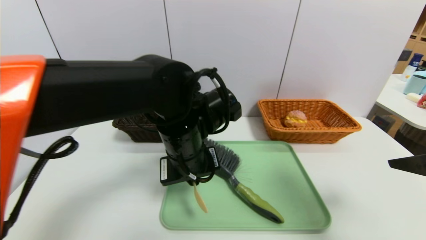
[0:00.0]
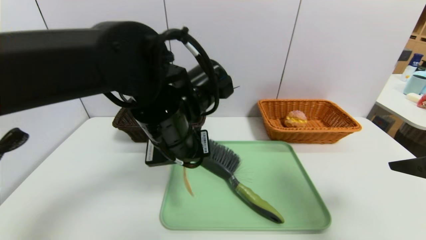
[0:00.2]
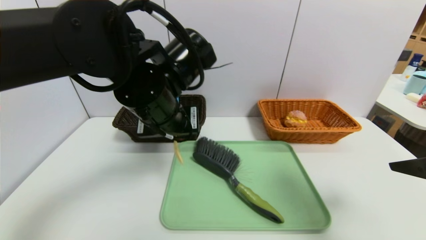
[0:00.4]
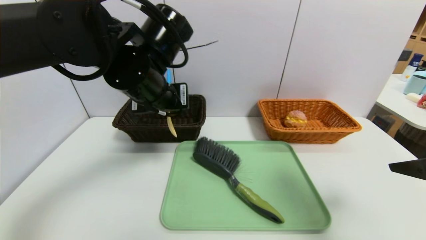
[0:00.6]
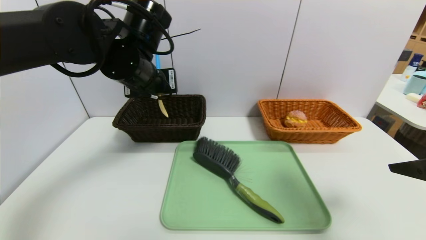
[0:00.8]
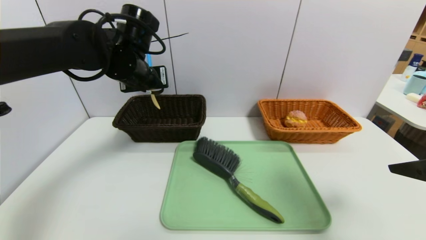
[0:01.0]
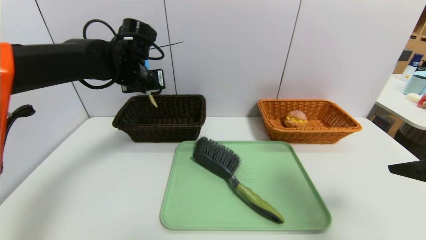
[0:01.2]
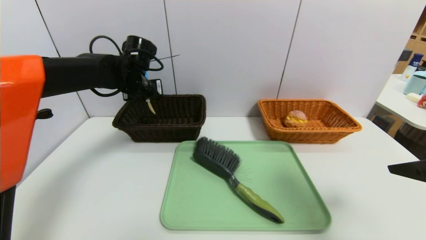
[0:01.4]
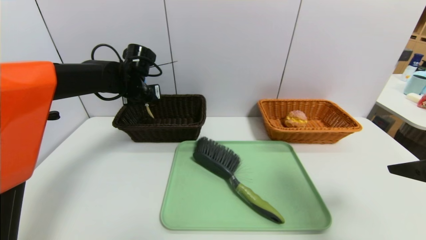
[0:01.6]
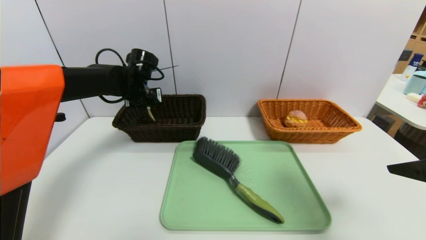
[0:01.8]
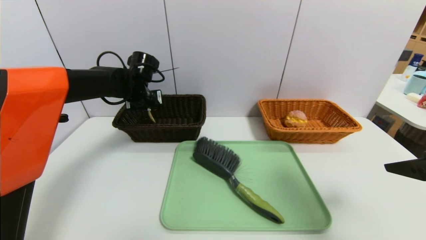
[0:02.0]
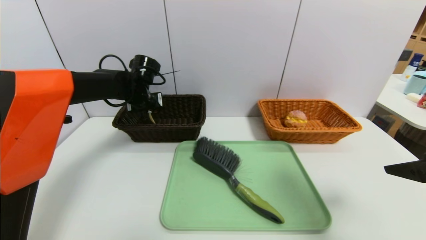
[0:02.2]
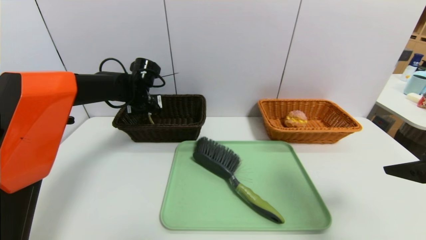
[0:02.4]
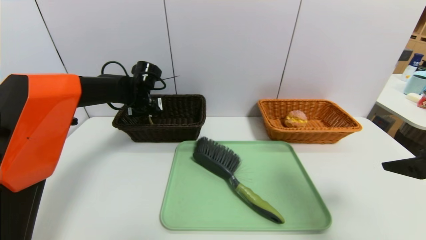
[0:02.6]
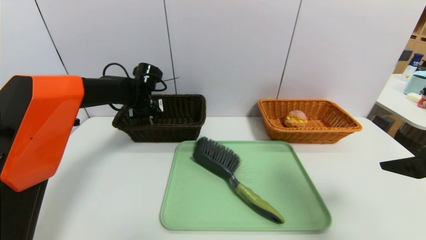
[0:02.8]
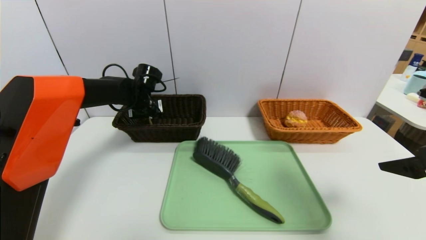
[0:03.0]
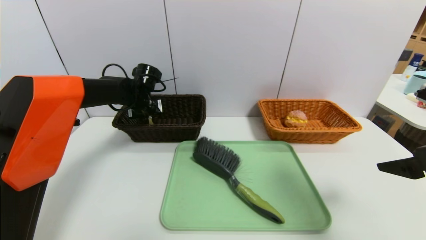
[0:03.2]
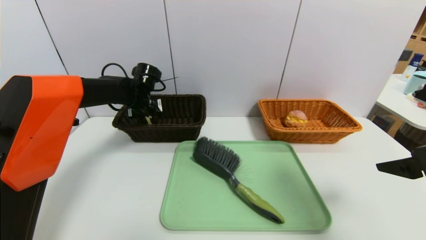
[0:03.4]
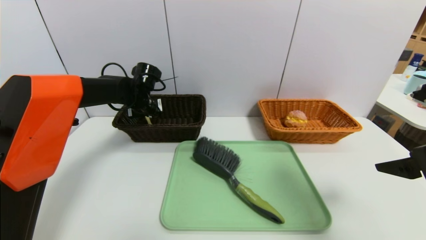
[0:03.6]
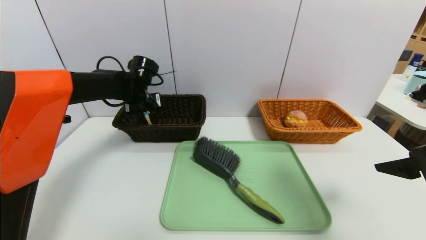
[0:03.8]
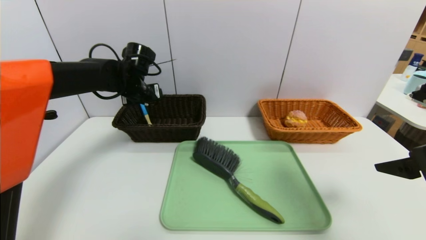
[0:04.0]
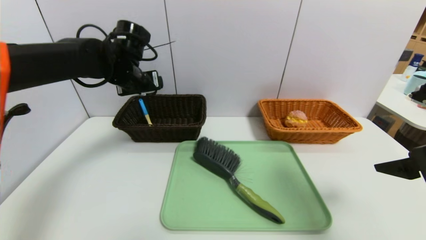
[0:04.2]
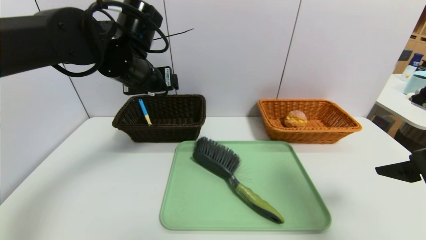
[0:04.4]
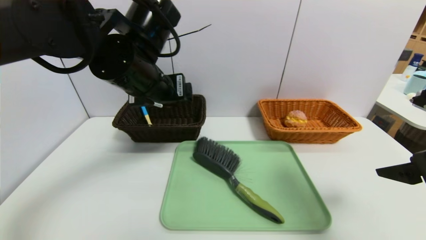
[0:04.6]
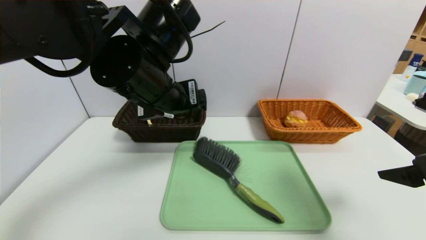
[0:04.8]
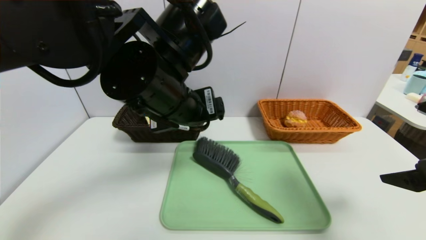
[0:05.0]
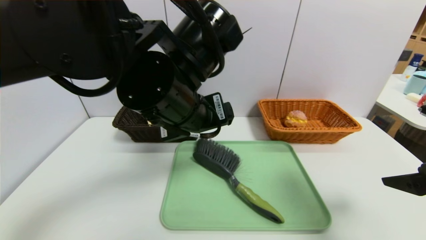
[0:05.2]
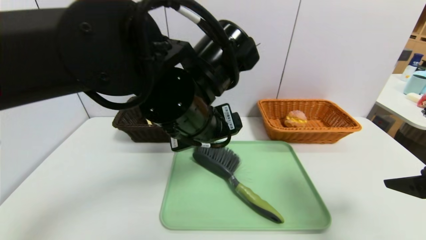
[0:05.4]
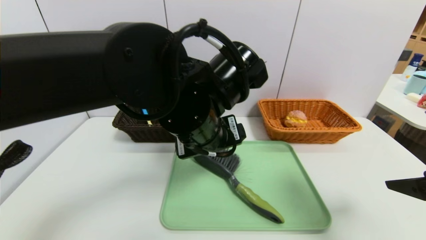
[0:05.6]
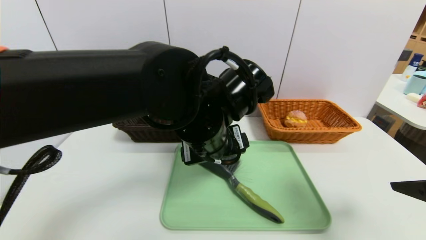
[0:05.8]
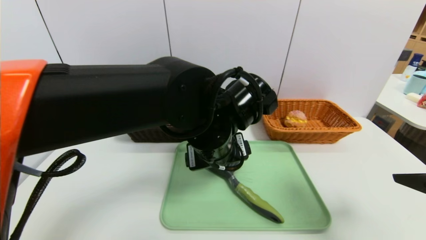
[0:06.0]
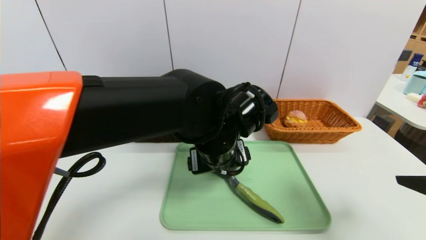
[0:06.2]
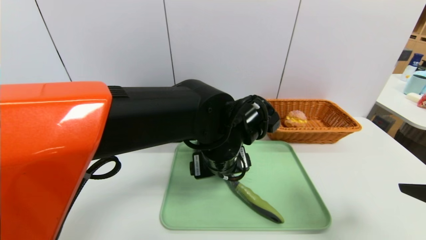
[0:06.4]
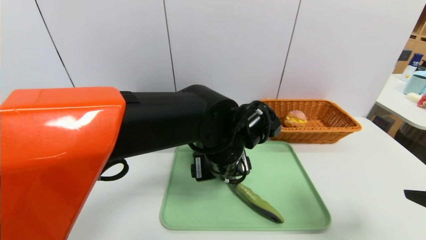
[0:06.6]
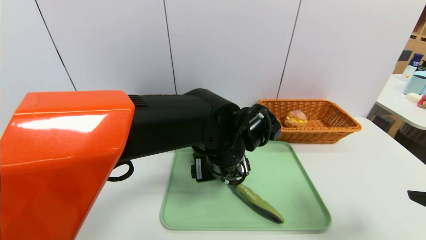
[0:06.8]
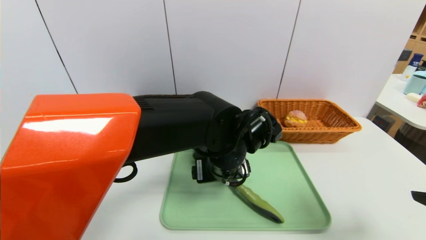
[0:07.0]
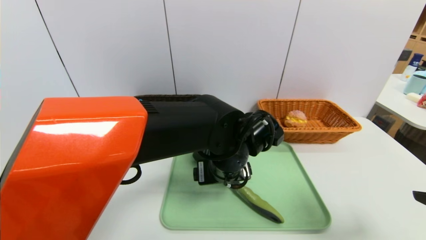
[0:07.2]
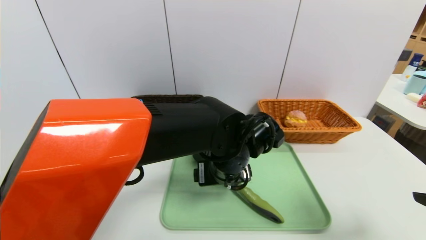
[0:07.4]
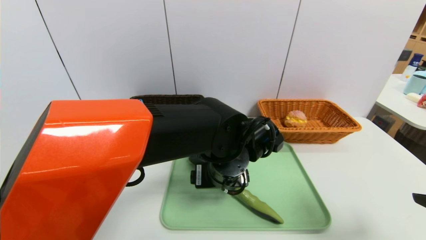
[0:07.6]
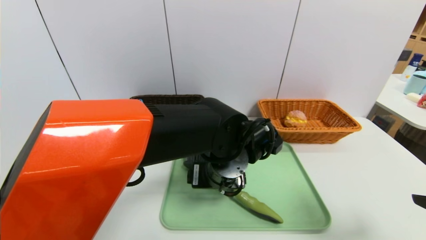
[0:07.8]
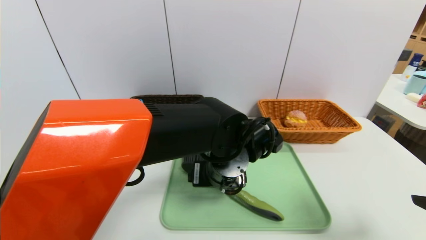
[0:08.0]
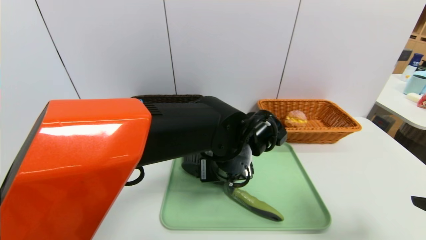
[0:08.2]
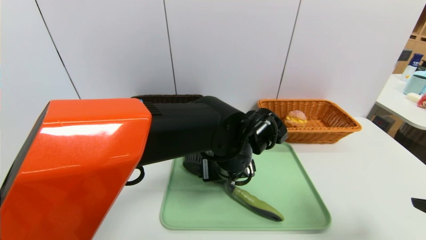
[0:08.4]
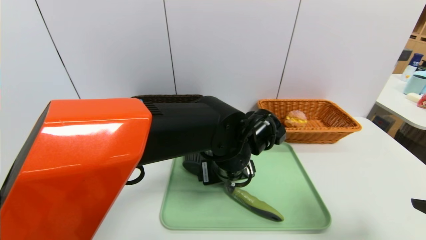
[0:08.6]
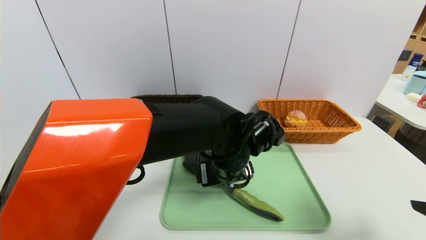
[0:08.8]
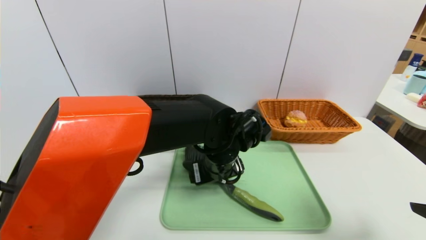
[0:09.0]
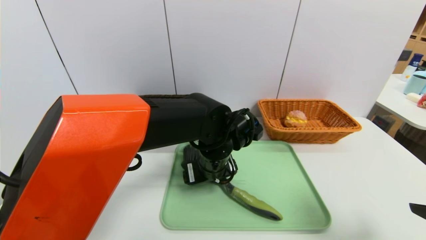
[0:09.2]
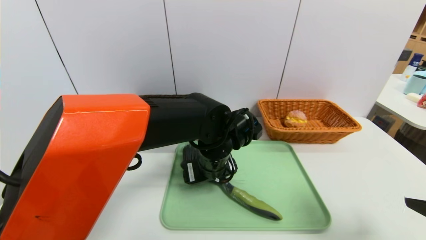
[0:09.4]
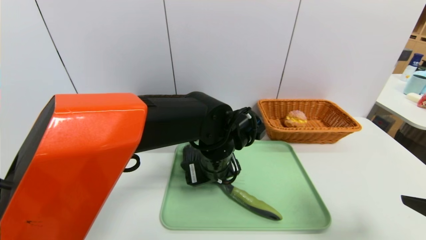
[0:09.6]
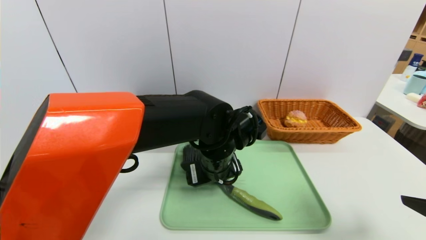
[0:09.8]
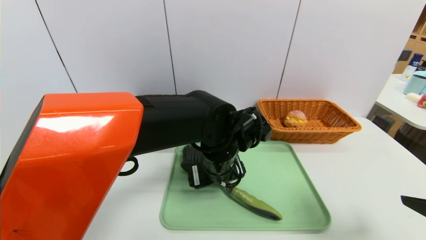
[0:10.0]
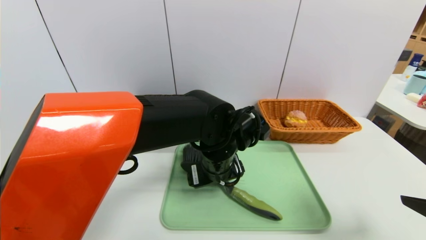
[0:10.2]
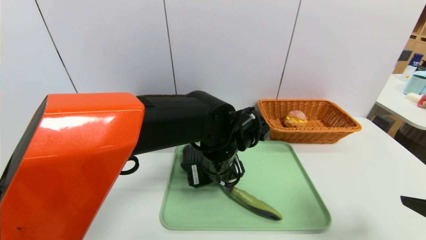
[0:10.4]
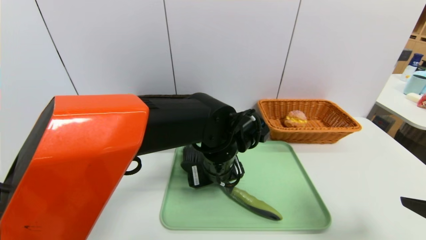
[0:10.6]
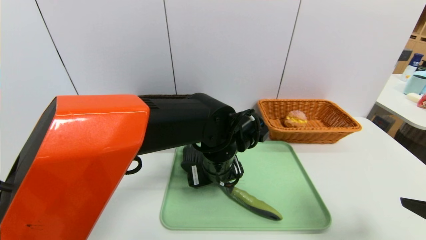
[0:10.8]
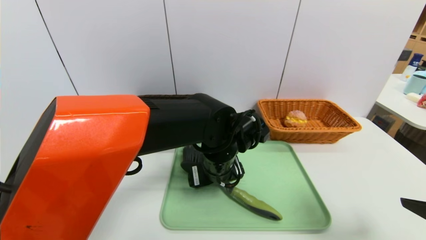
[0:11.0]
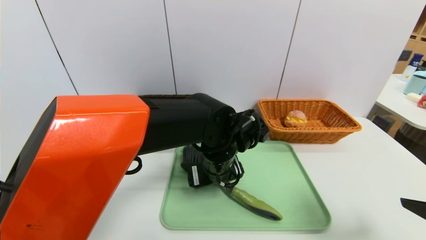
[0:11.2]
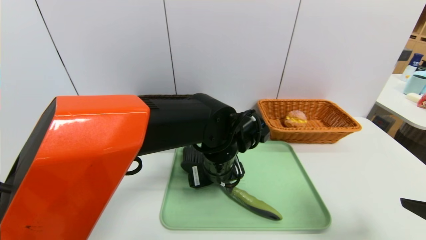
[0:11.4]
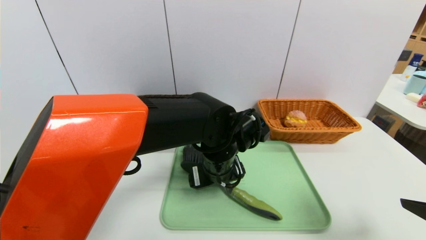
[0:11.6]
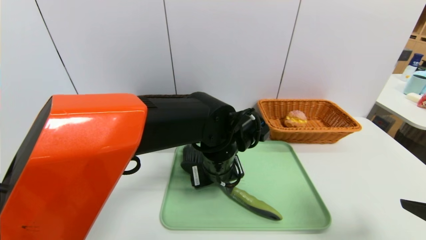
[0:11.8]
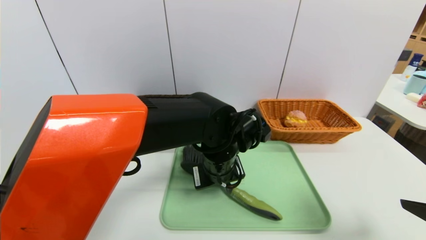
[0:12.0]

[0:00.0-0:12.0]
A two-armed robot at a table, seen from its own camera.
Task of the whole recording: place the food in the right basket with the right gripper, and place the non food items in the left basket with the left gripper.
Step, 0:00.0 to 0:03.4: Grasp the spoon and put it in the left basket.
0:00.0 to 0:01.6: The left gripper heads forward and to the left, covering about 25 cm.
0:01.6 to 0:03.0: The left gripper changes place by some 5 cm.
0:03.0 to 0:04.4: The left gripper heads upward, backward and to the right, covering approximately 20 cm, and opens its fingers.
0:04.4 to 0:06.0: The left gripper goes approximately 20 cm to the right, backward and downward.
0:06.0 to 0:07.6: The left gripper heads downward, covering about 5 cm.
0:07.6 to 0:10.4: There are only small adjustments of the grippers.
0:10.4 to 0:12.0: The left gripper closes.

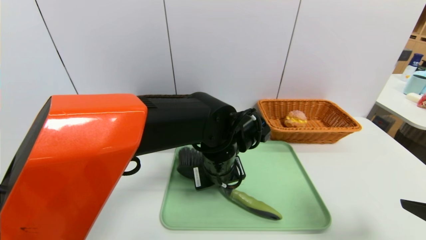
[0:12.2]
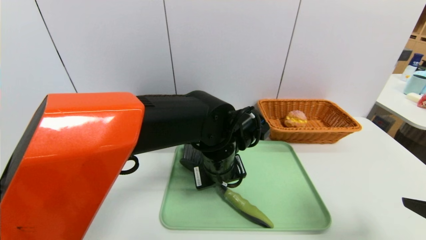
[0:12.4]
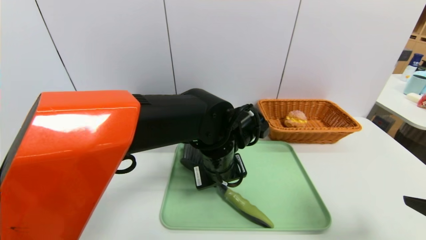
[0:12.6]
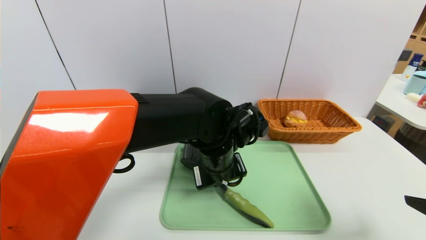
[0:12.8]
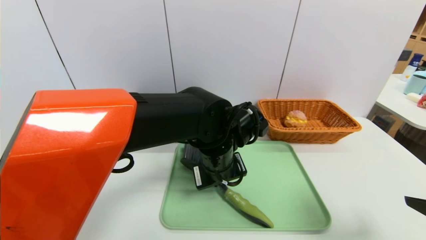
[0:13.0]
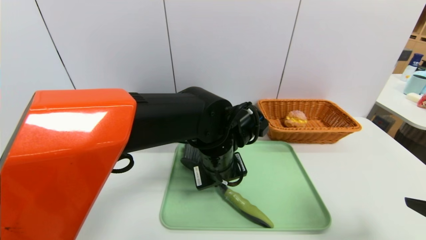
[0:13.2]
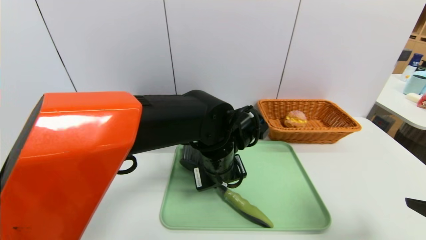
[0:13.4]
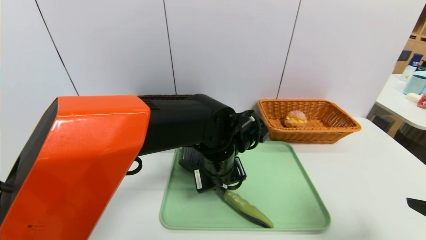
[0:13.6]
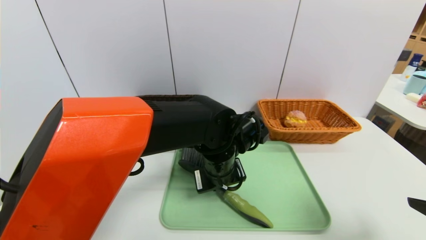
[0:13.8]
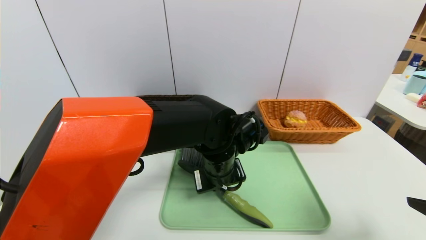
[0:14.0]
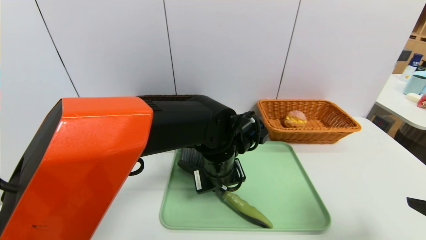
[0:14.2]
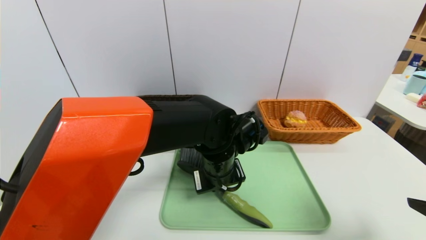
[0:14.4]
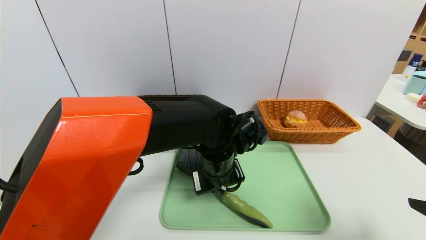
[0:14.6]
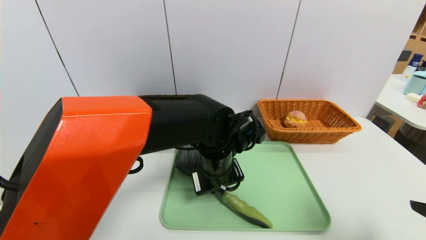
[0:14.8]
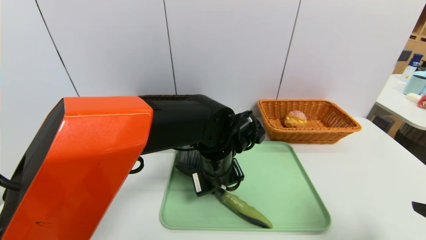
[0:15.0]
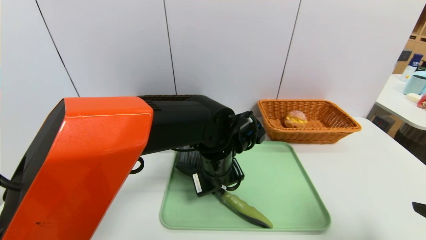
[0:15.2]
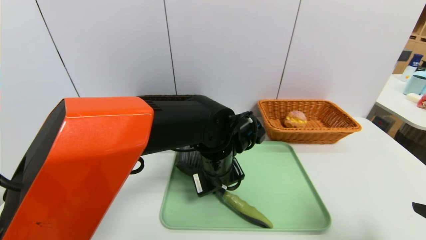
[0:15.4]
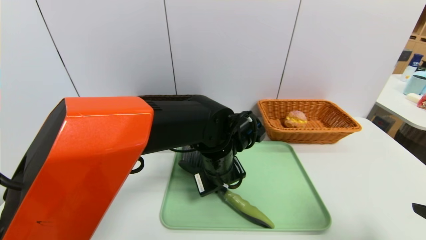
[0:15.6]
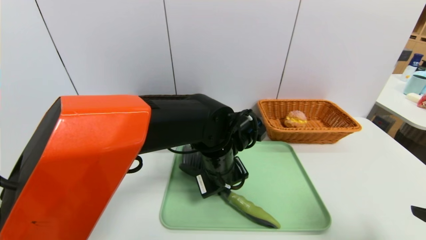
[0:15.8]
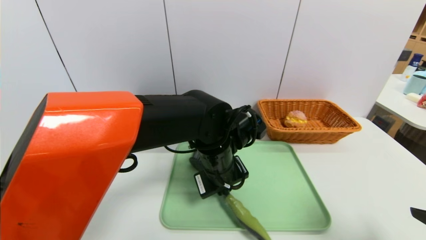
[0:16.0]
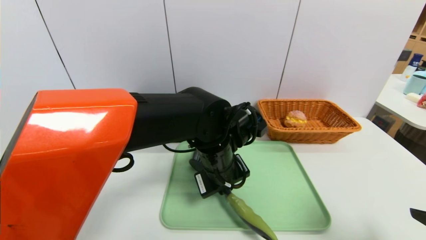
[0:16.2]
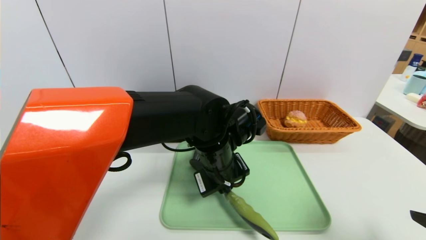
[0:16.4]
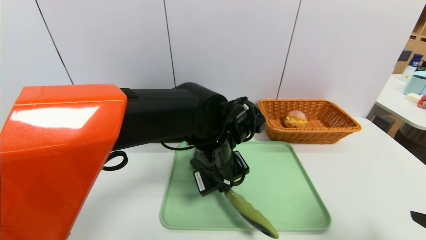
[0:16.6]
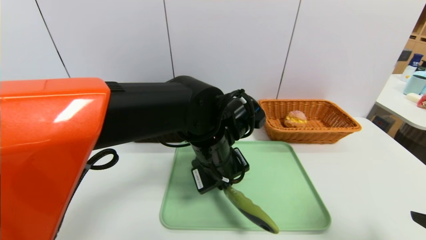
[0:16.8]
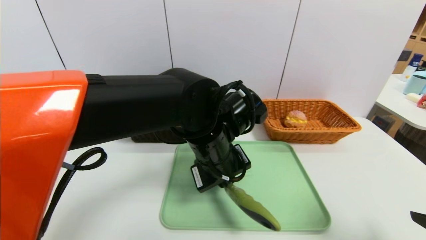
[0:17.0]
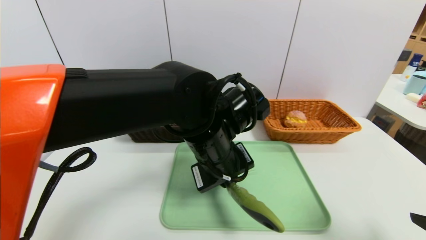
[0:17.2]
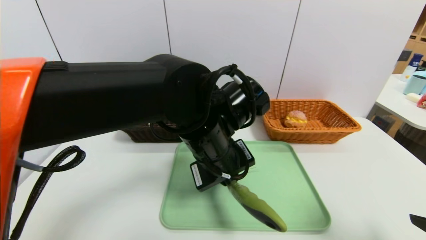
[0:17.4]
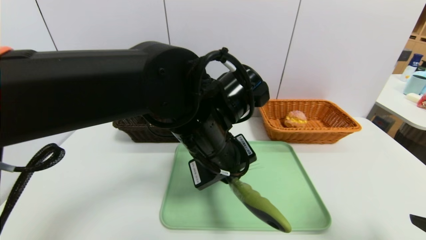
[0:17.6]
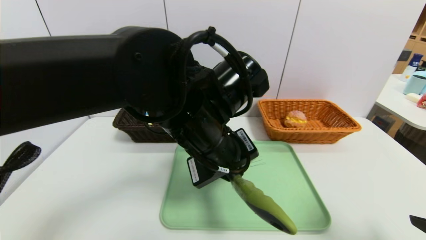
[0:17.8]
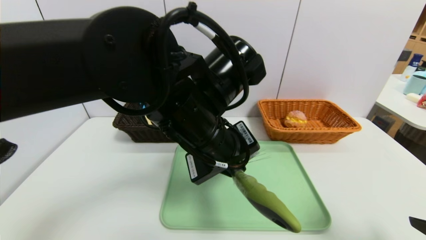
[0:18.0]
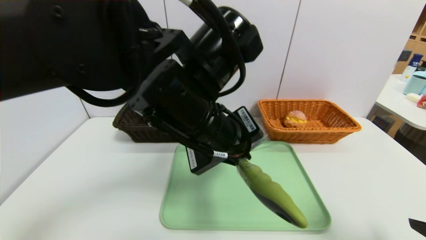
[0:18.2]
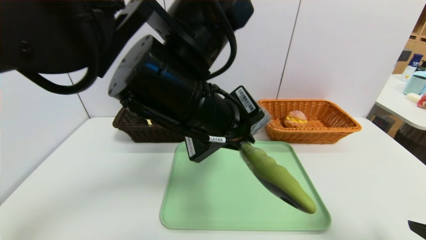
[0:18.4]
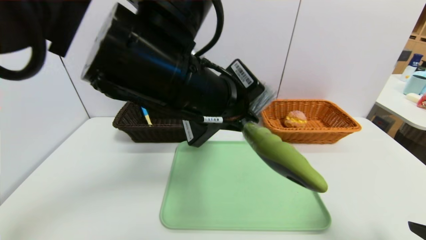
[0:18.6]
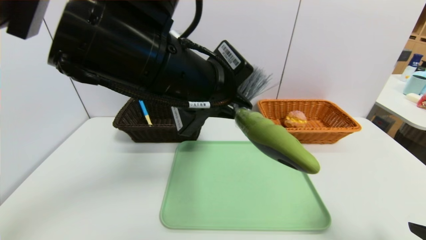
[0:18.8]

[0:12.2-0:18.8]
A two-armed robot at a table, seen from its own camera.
Task of the whole recording: place the food in the right basket with the right gripper, and place the non food items in the left basket with the left gripper.
0:12.2 to 0:13.8: Neither gripper changes place.
0:13.8 to 0:15.4: There are only small adjustments of the grippers.
0:15.4 to 0:17.2: The left gripper travels upward by roughly 5 cm.
0:17.2 to 0:18.8: The left gripper travels upward and to the left by about 15 cm.
